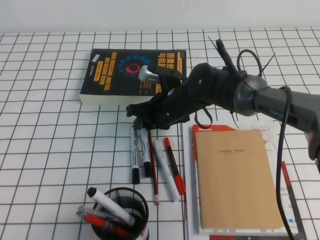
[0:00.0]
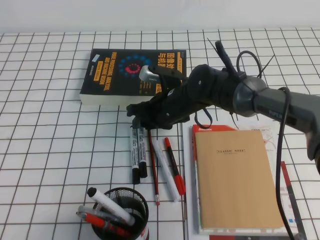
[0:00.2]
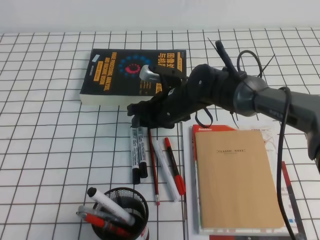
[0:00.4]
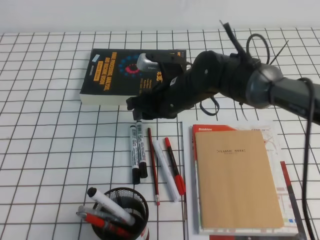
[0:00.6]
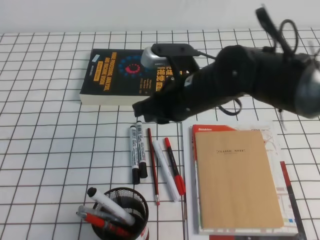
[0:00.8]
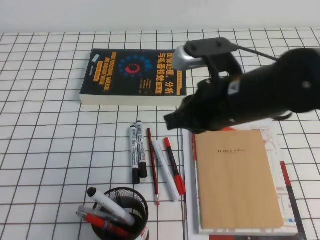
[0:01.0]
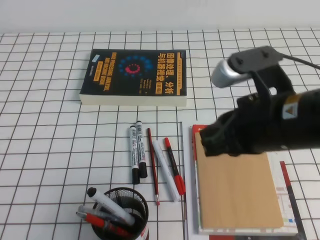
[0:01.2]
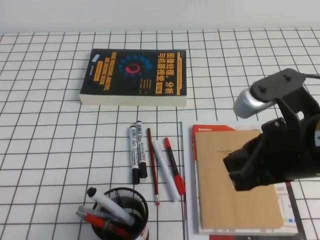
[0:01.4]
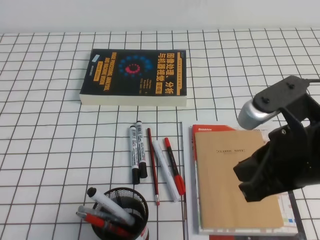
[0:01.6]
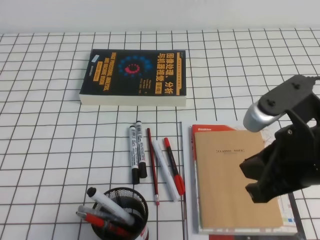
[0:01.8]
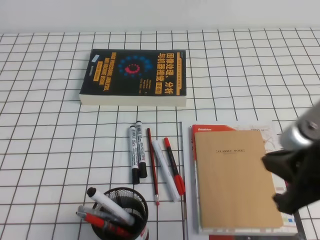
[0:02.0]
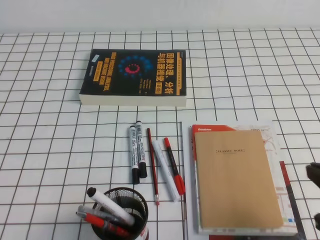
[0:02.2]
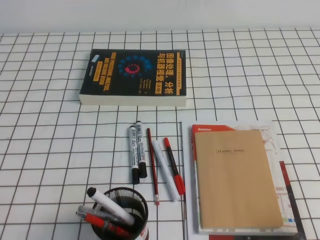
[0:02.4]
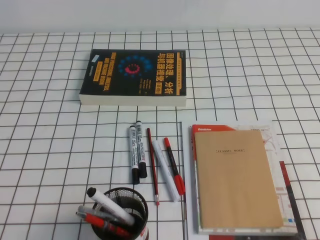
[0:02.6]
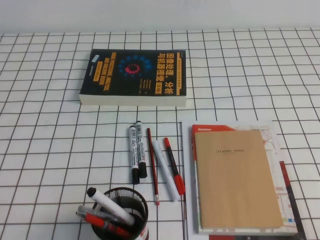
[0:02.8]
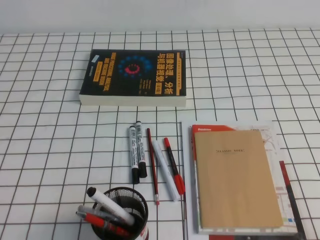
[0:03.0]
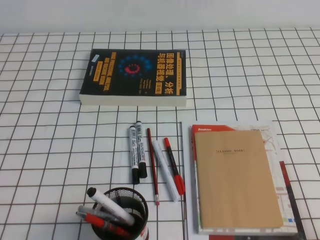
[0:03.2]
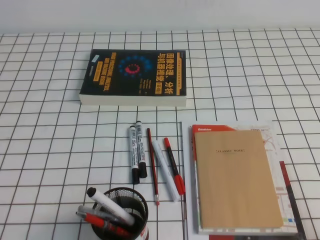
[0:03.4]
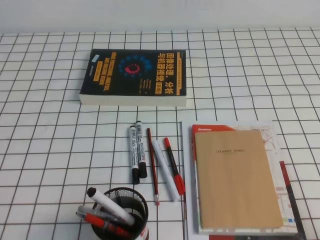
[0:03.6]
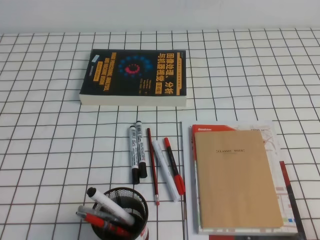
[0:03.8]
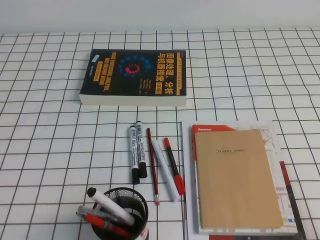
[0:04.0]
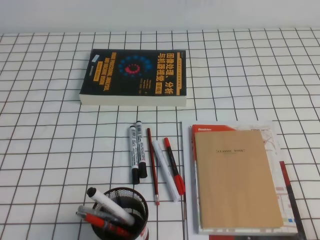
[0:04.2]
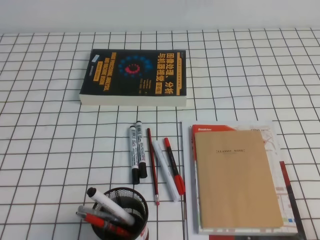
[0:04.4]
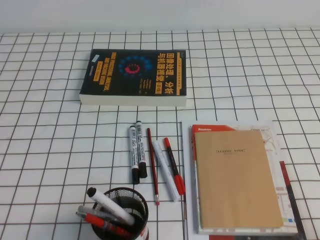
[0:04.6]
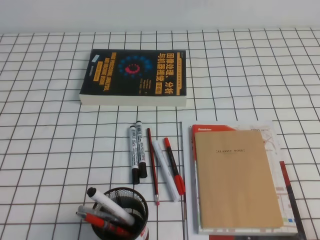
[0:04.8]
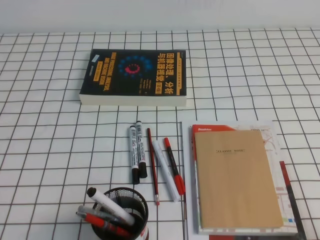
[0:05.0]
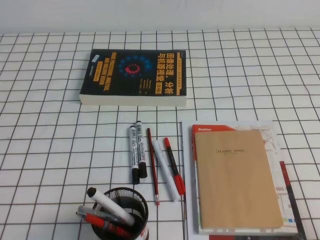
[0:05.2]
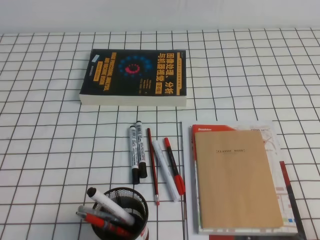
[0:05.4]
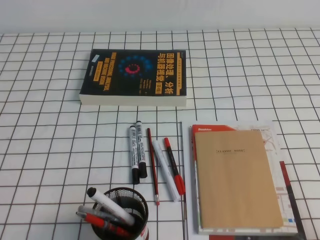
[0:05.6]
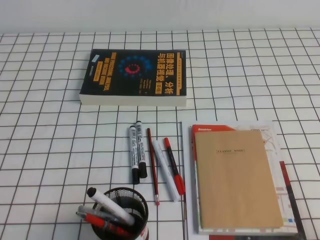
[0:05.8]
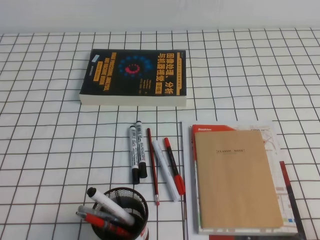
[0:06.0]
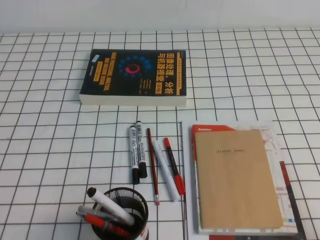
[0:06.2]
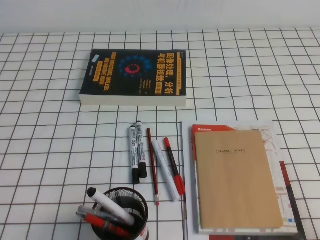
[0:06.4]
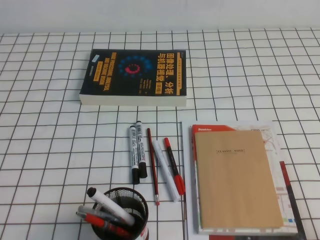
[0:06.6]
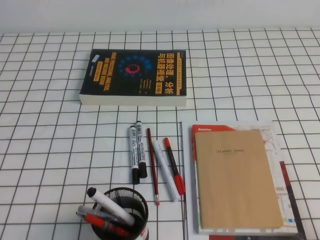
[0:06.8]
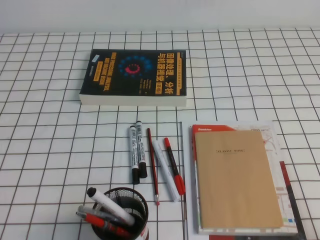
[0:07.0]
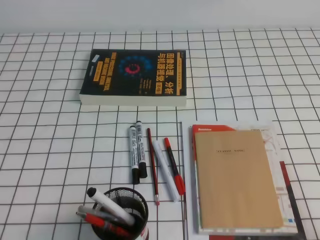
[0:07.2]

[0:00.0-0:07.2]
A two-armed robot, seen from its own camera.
Step, 0:00.0 to 0:07.2: Pick up the pen from the pen holder.
0:00.0 to 0:01.4: The right gripper shifts approximately 30 cm backward, to the right and upward, and closes its fingers.
0:01.4 to 0:02.8: The right gripper shifts roughly 25 cm to the right, downward and backward.
0:04.4 to 0:07.2: The two grippers keep their place.
